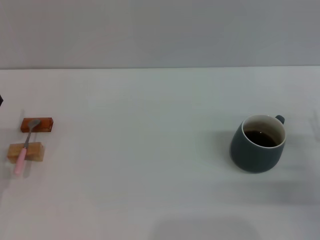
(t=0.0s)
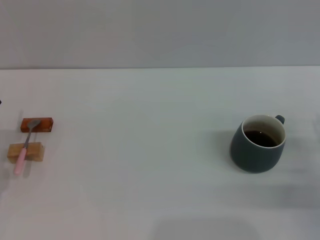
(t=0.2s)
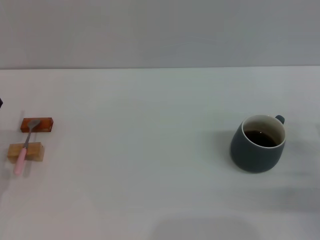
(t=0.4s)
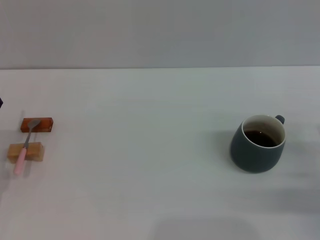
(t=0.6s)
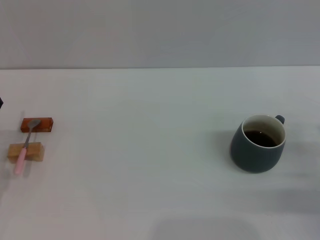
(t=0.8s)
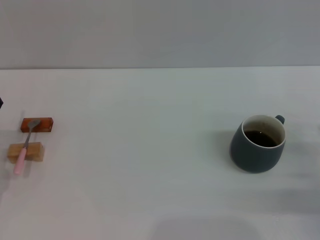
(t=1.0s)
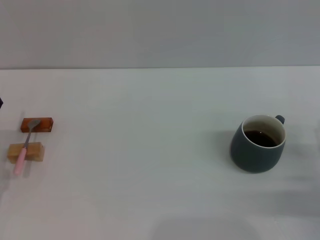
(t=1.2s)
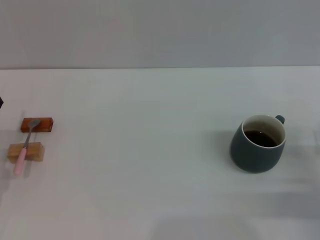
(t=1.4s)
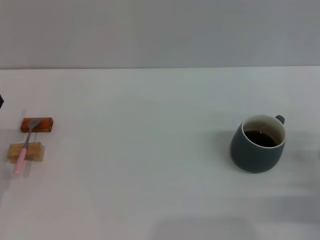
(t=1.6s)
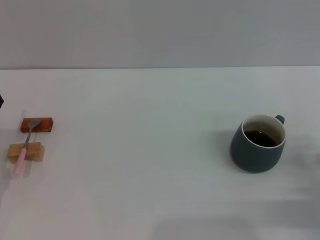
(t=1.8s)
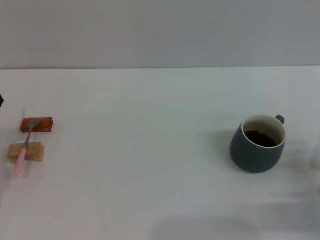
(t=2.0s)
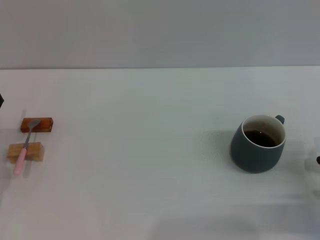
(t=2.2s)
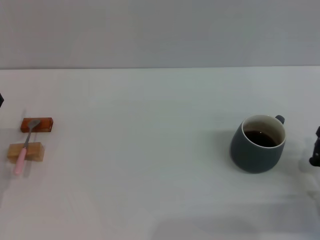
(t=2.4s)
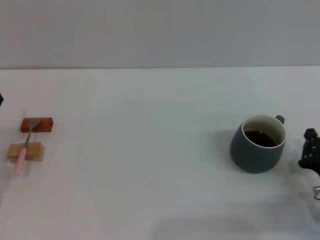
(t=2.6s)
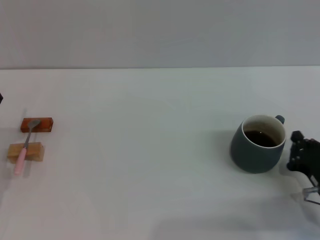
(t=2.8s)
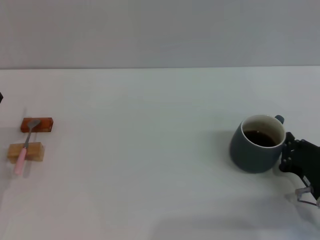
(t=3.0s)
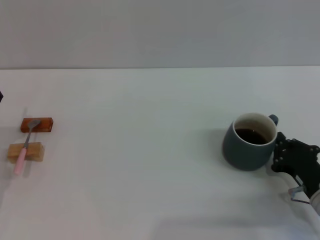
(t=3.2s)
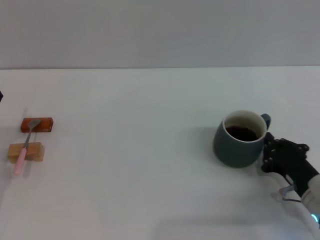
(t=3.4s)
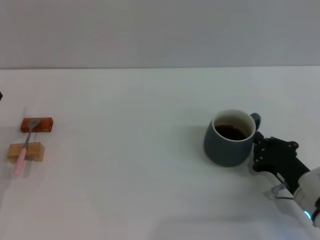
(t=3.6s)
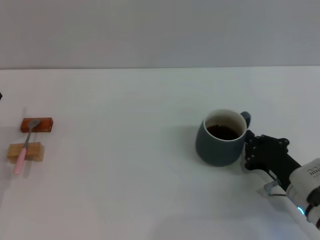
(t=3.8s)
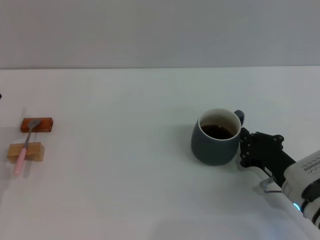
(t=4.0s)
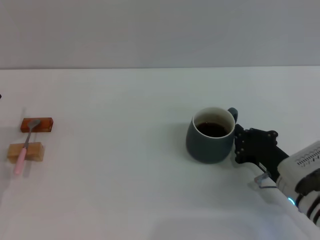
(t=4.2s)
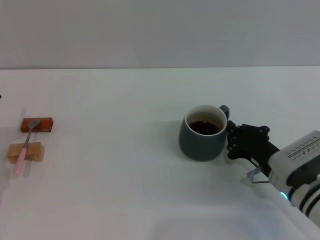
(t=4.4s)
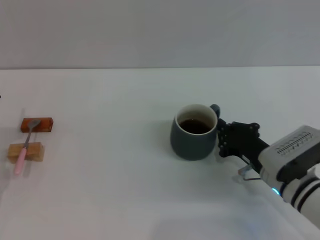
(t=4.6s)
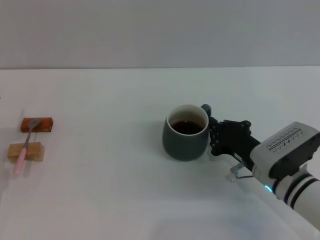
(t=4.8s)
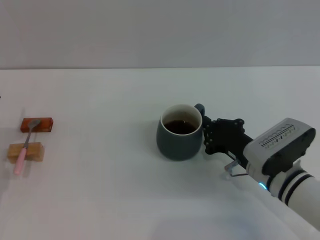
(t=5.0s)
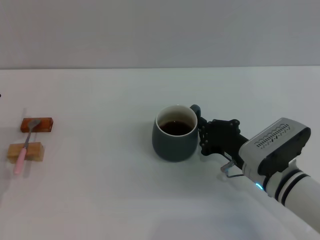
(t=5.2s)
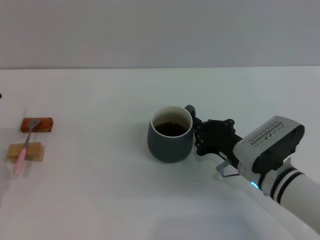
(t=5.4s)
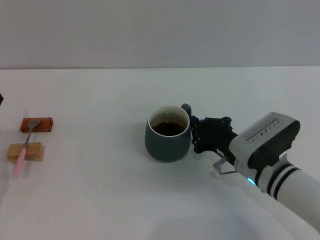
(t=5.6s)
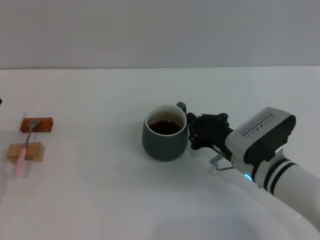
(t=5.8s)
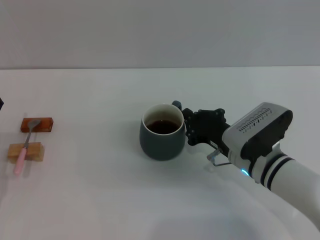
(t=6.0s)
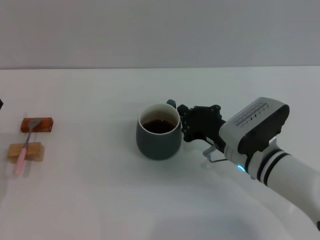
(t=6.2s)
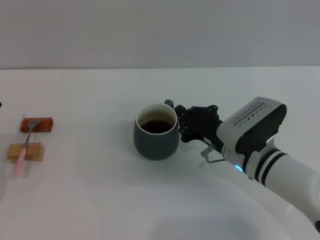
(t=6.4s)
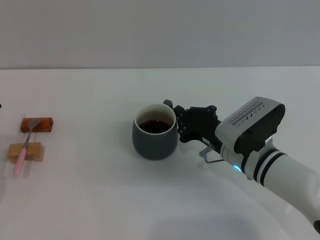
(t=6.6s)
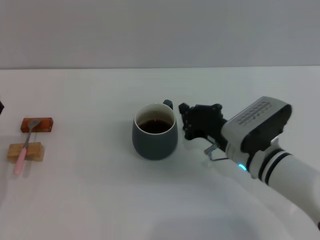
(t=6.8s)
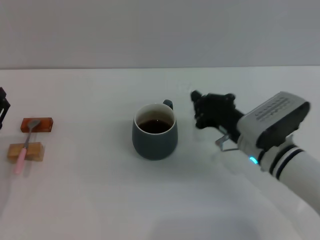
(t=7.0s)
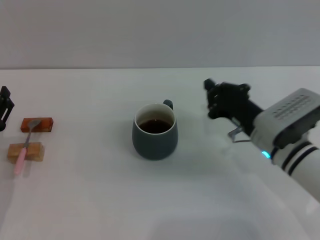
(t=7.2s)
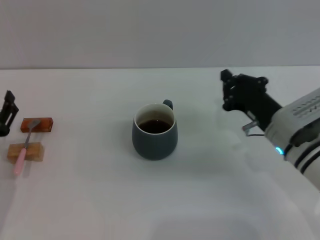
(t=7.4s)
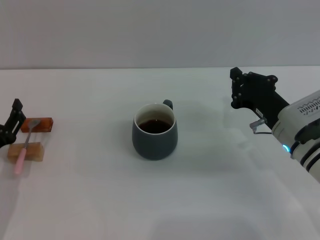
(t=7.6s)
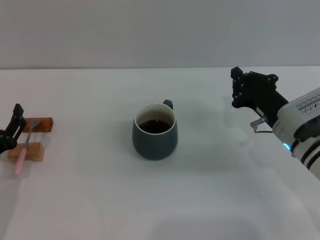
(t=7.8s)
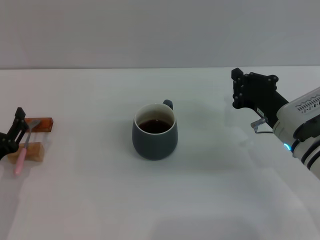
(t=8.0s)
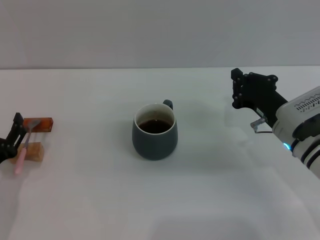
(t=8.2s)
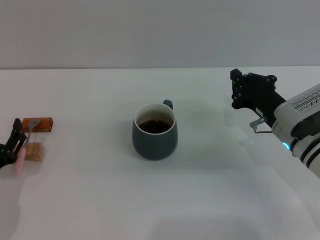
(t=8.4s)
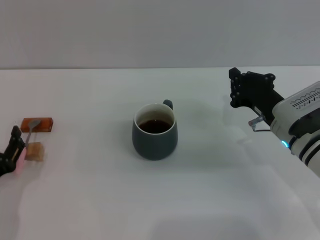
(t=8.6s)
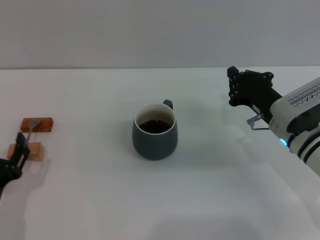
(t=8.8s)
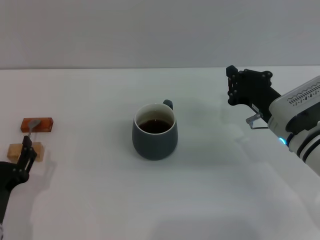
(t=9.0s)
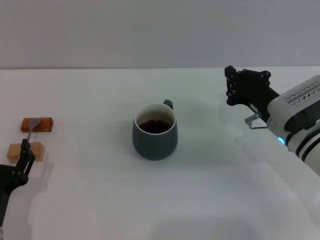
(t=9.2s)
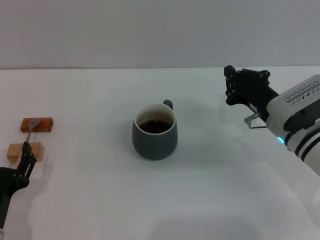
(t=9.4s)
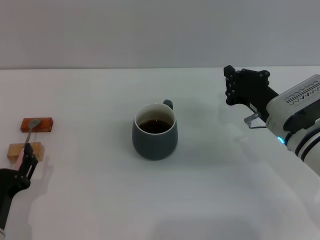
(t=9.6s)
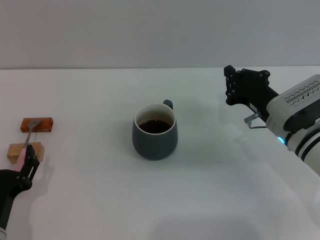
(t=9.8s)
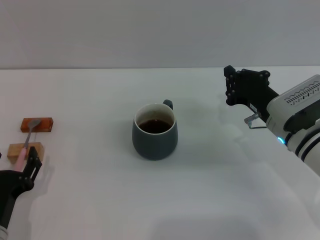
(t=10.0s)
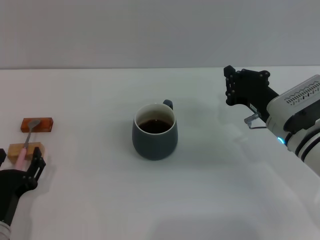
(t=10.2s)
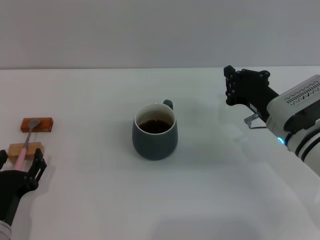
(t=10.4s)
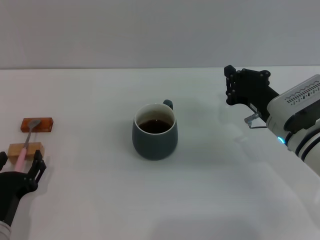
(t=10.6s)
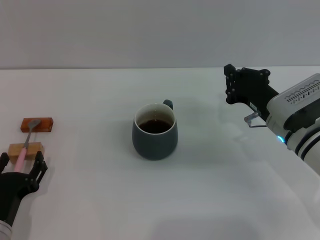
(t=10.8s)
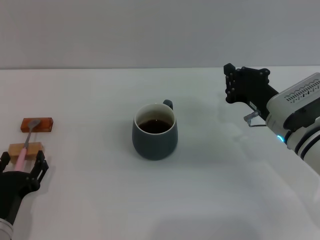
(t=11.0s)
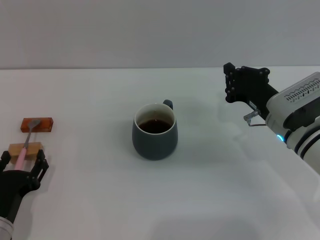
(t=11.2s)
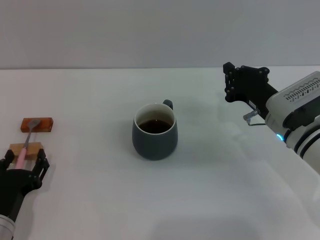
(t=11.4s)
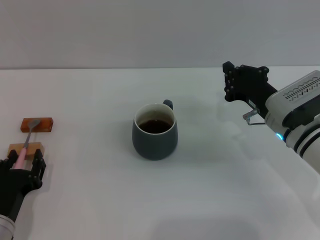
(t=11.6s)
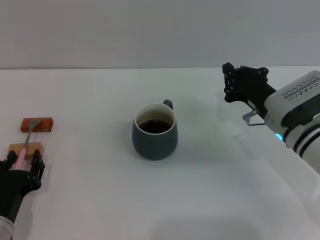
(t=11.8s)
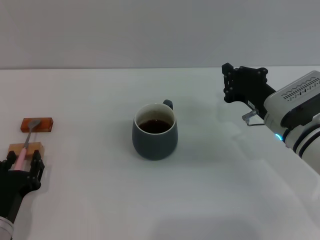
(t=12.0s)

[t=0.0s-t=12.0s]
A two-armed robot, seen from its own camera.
Task of the whole recording: Move the grey cup to the center, lift the pink spoon, stir it three times in the cup, and put the spoon into the cup.
Step, t=0.0s to t=6.8s: Move the cup with coffee to the center of view with the right gripper.
t=1.6s to t=3.0s: The right gripper is displaced to the left by some 5 cm, and closes.
t=3.0s to t=4.4s: The right gripper is displaced to the left by roughly 5 cm.
t=4.4s to t=6.0s: The right gripper moves to the left, some 5 cm.
t=6.0s to t=7.6s: The right gripper is displaced to the right by some 5 cm.
t=7.6s to t=9.0s: The left gripper is displaced backward by roughly 5 cm.
t=9.0s to t=10.4s: The grippers stay close to where they were, moving slightly.
t=10.4s to t=12.0s: Both grippers stay put.

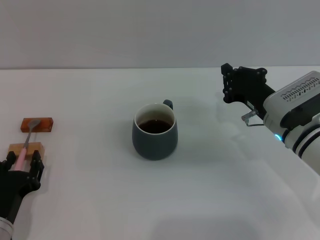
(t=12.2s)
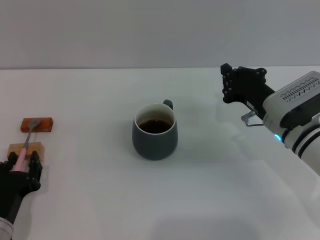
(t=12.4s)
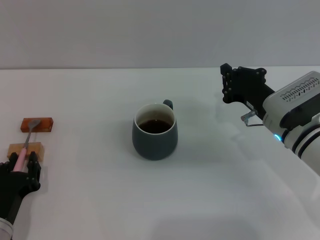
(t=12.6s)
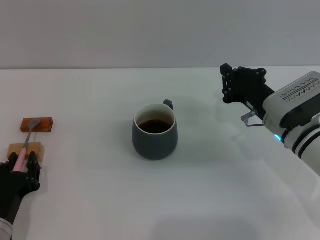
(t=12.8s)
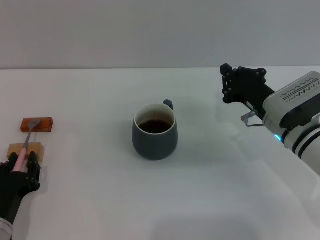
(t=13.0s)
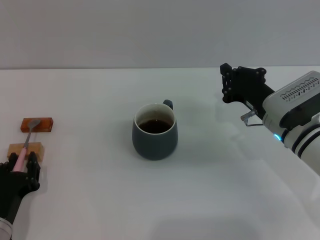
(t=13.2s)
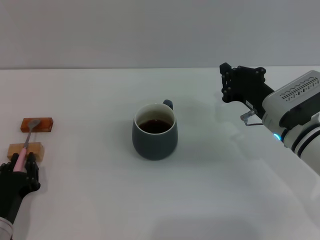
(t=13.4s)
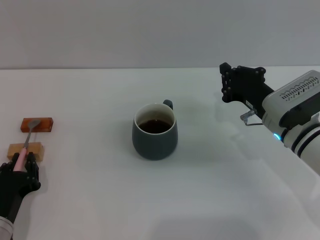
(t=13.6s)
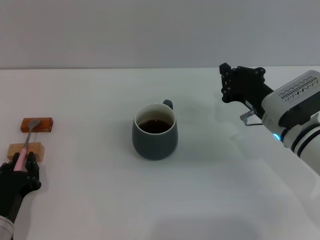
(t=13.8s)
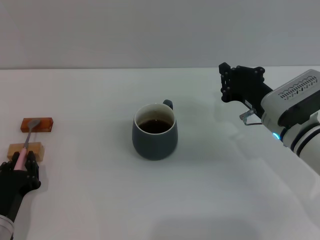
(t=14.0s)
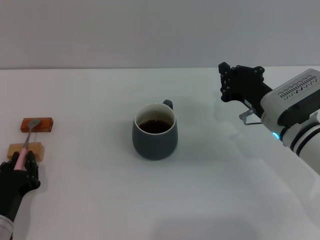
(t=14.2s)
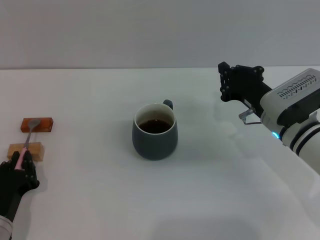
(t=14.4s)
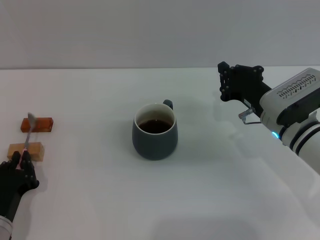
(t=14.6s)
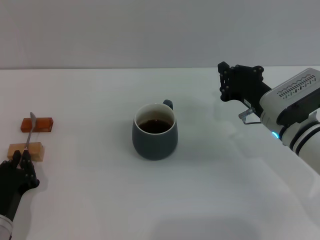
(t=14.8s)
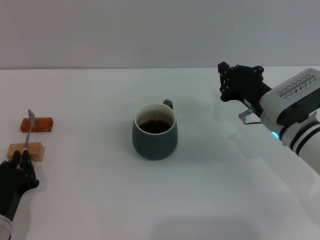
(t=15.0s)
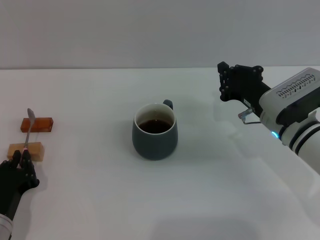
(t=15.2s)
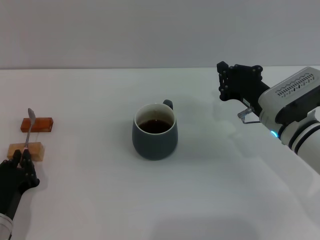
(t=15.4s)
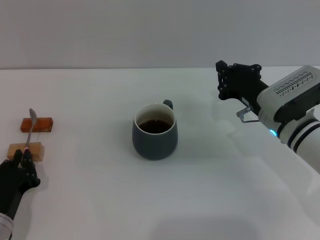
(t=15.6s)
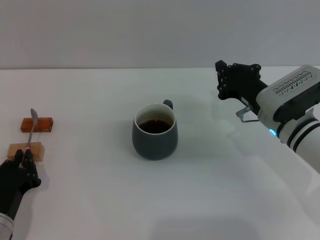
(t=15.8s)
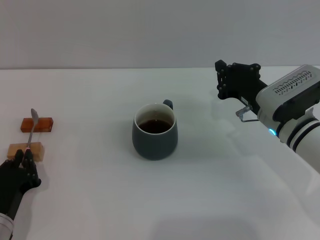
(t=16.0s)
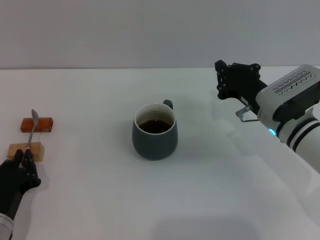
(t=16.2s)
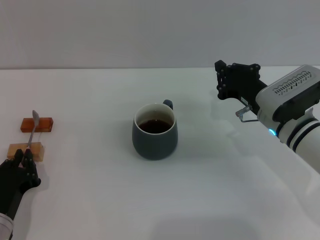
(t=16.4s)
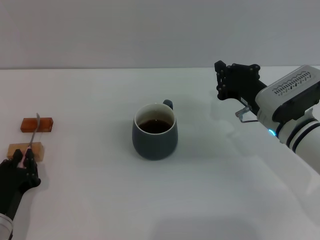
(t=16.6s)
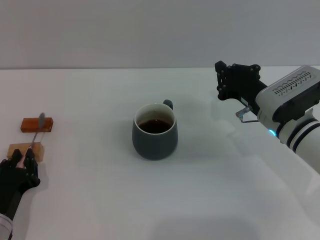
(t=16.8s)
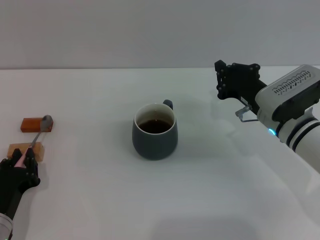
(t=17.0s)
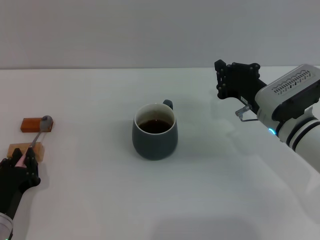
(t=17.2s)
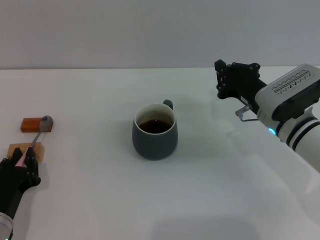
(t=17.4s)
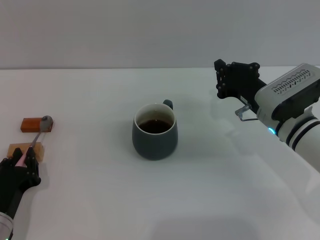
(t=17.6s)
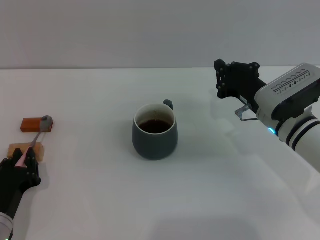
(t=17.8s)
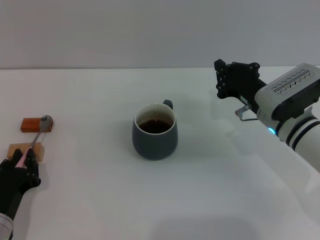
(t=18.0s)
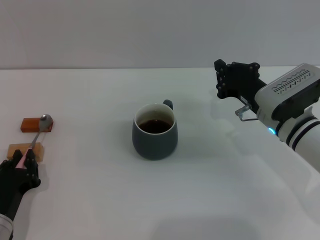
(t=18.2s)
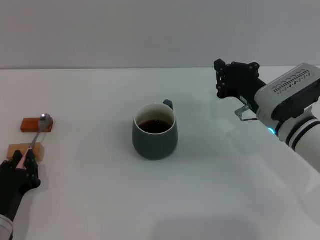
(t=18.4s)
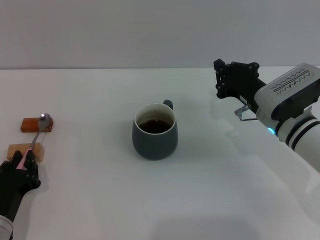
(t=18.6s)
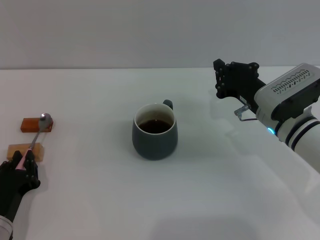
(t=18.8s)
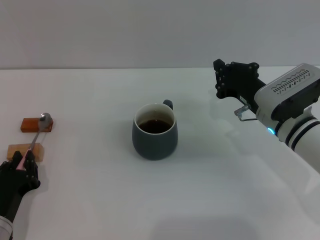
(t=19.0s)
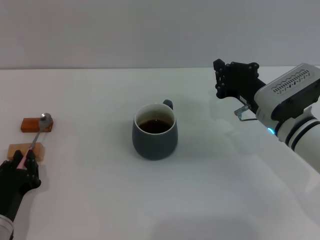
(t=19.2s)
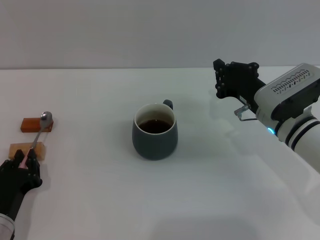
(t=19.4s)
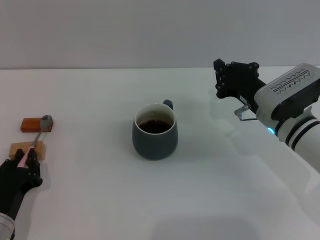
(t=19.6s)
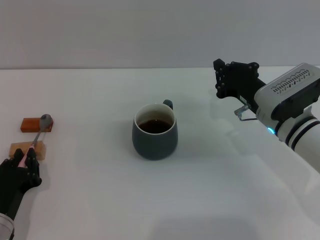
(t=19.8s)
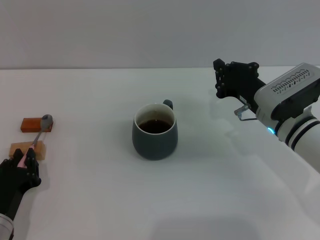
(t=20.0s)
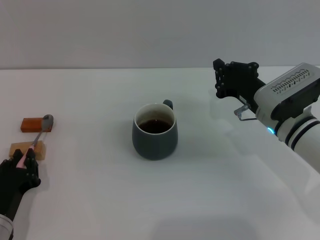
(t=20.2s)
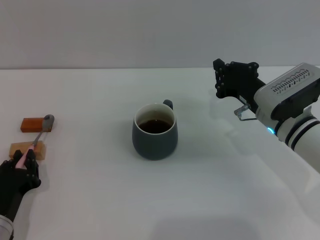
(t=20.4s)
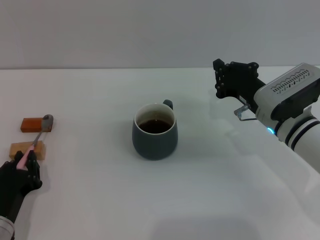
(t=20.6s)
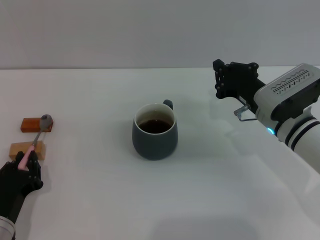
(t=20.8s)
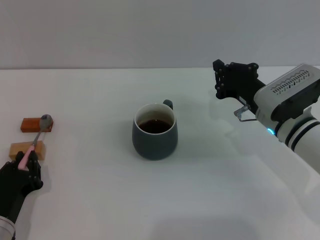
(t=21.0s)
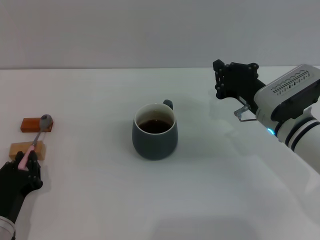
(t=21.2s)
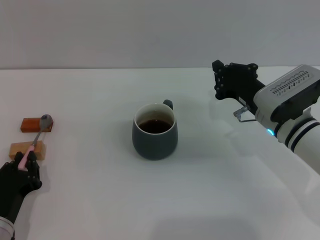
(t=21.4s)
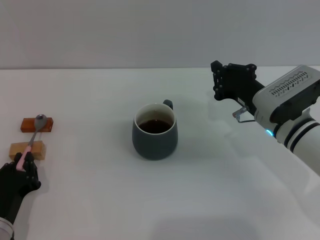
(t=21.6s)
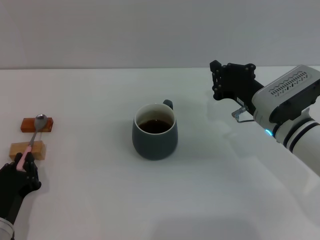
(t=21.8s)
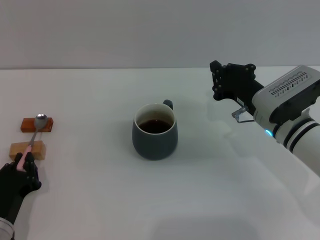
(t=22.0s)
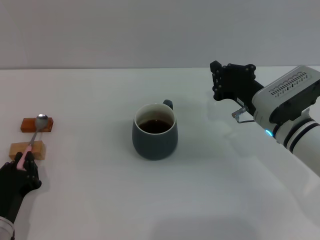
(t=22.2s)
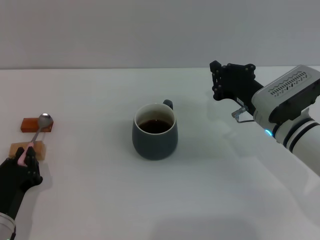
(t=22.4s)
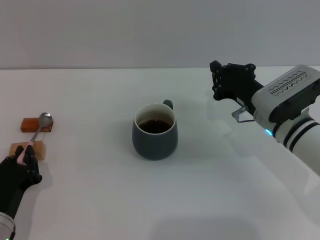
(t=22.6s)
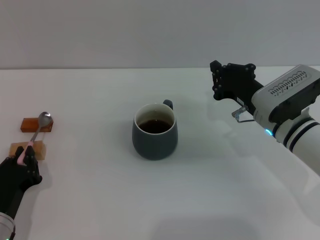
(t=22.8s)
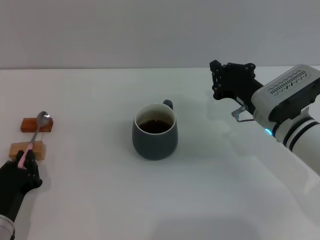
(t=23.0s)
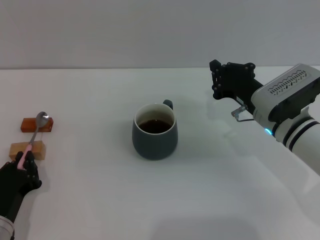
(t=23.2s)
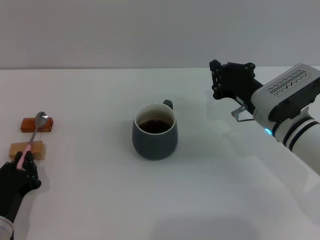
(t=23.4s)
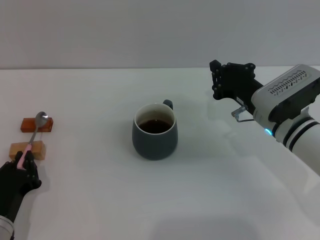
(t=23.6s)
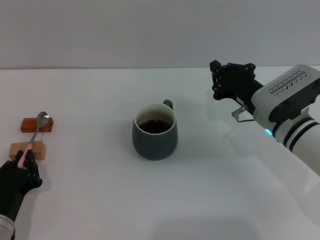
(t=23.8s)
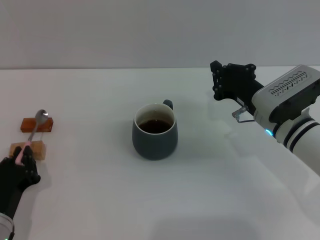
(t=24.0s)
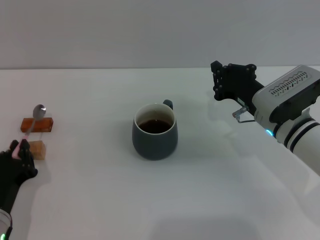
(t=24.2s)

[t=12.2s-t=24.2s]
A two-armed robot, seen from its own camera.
Task of the whole recording: Move the grey cup to the center, lift the pink spoon, stir it three times in the cup, and put the spoon into the cup.
t=12.2s to t=13.8s: The left gripper closes.
t=13.8s to t=22.6s: Both grippers stay put.
t=22.6s to t=24.2s: Neither gripper changes place.
